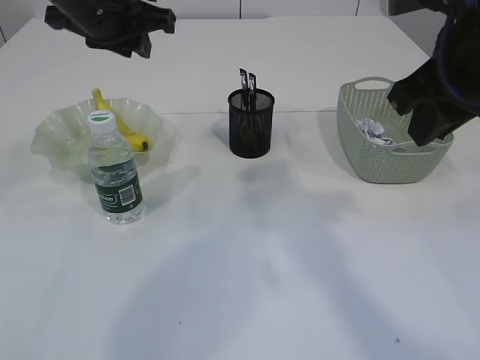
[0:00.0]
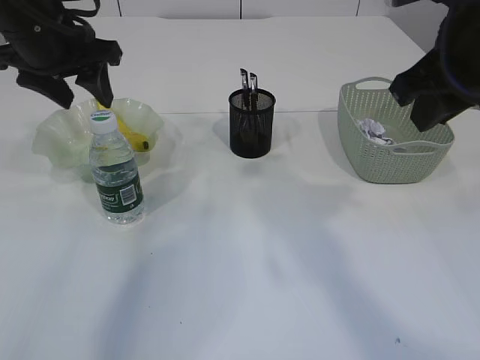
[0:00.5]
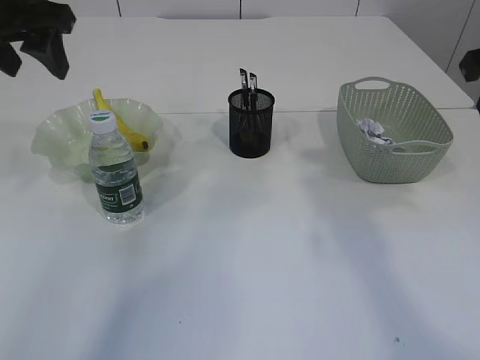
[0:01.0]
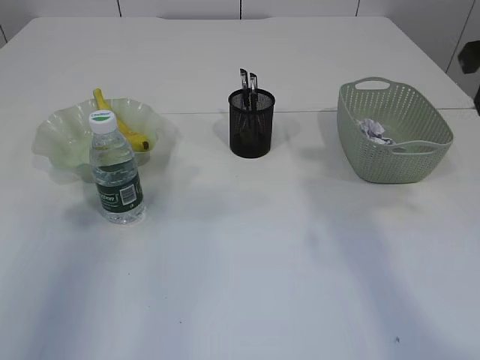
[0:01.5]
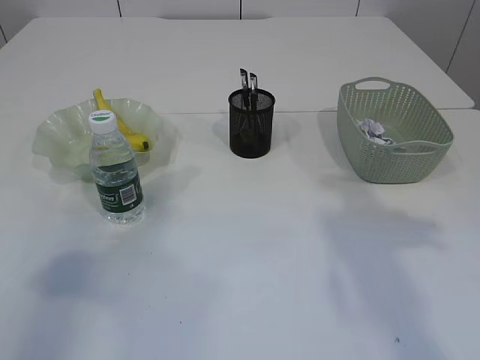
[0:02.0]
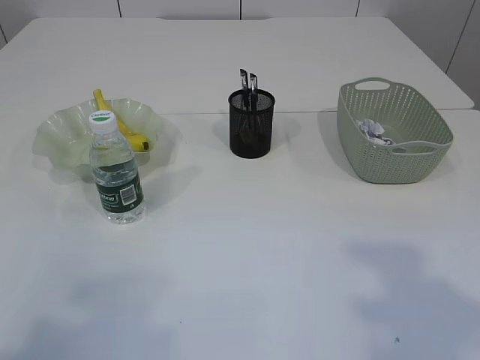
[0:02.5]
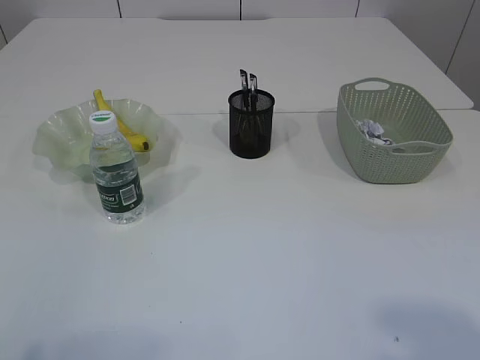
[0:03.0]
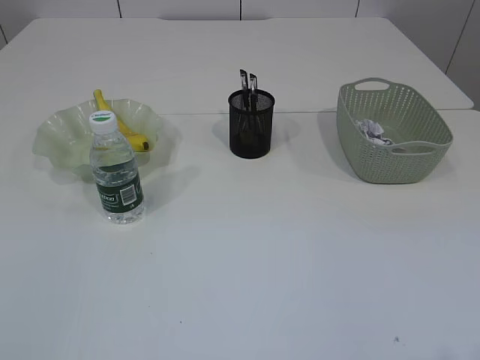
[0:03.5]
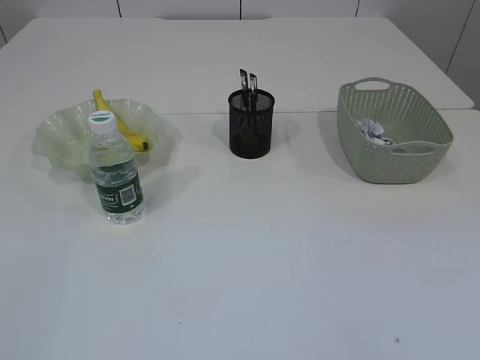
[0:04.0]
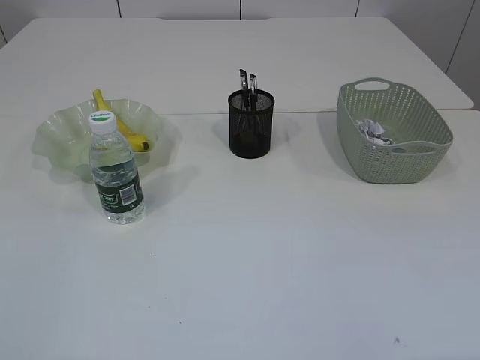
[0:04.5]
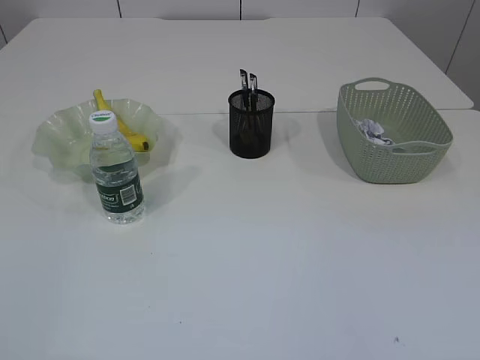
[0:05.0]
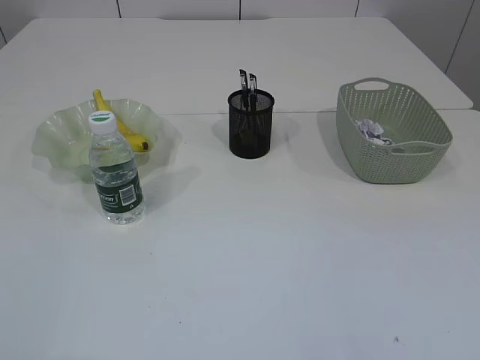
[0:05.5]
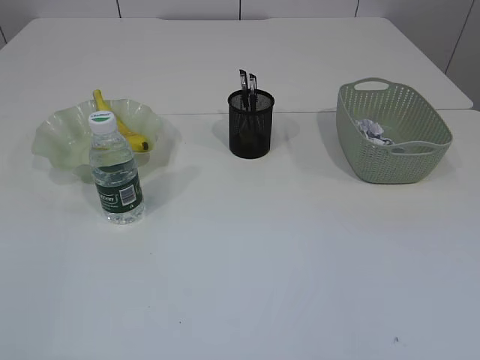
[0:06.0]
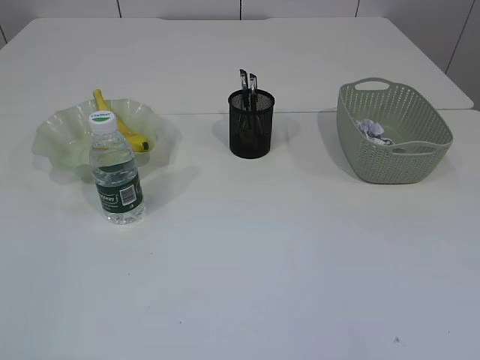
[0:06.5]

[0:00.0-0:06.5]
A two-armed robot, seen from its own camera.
0:00.0 to 0:02.0: The left gripper shifts some 30 cm backward and to the left, and opens up. The right gripper goes about 10 cm to the right.
0:02.0 to 0:04.5: The left gripper shifts about 20 cm backward and downward.

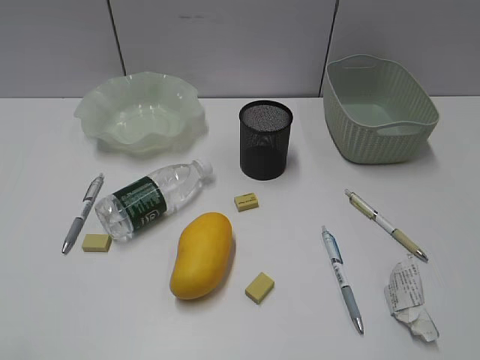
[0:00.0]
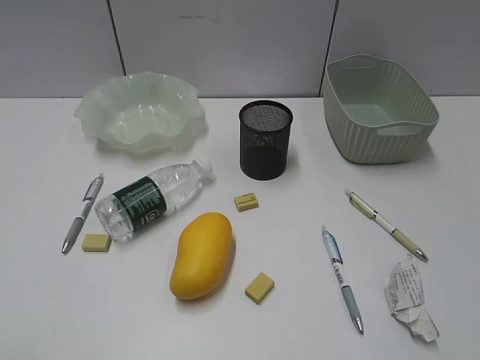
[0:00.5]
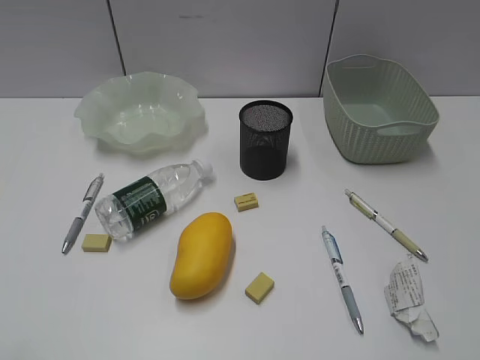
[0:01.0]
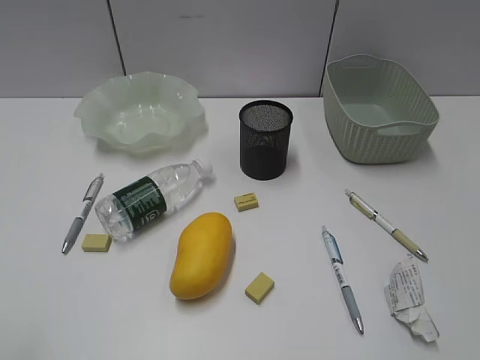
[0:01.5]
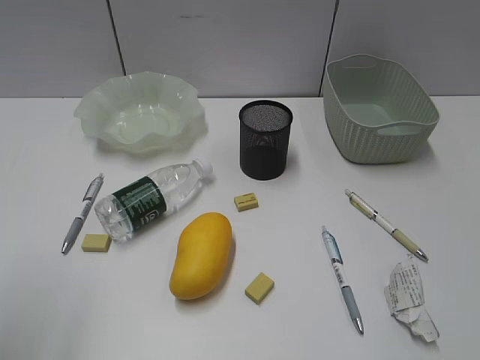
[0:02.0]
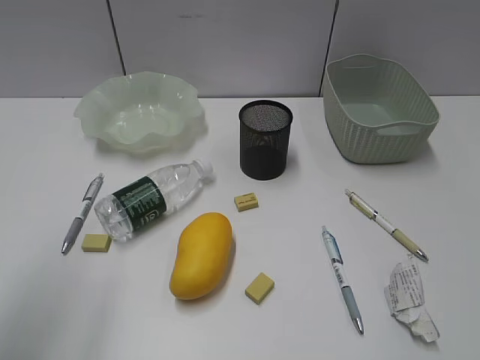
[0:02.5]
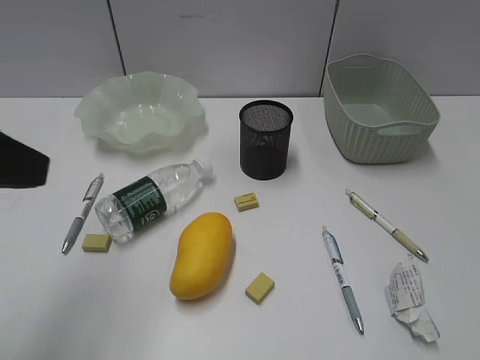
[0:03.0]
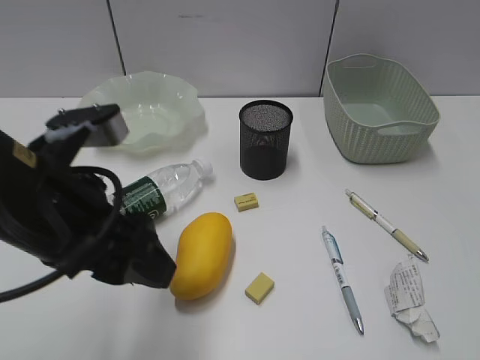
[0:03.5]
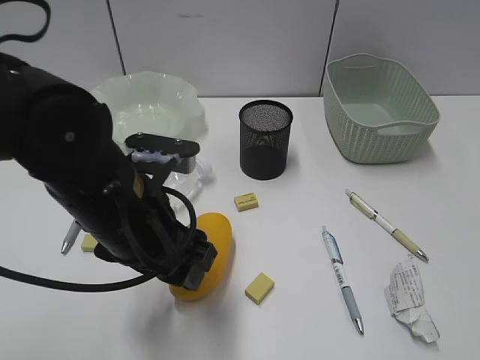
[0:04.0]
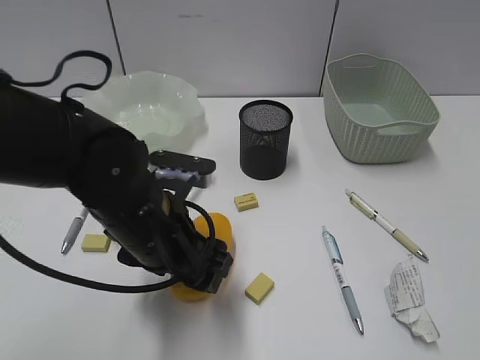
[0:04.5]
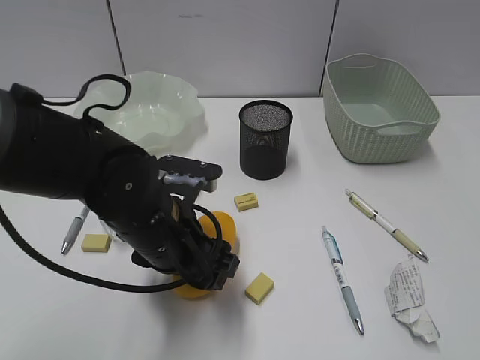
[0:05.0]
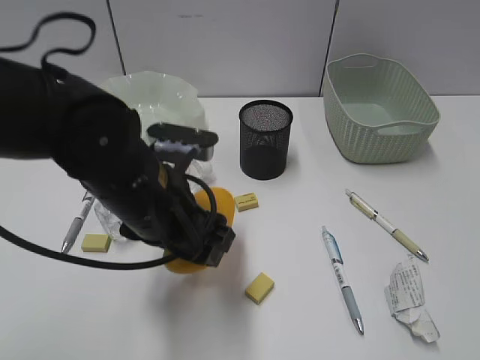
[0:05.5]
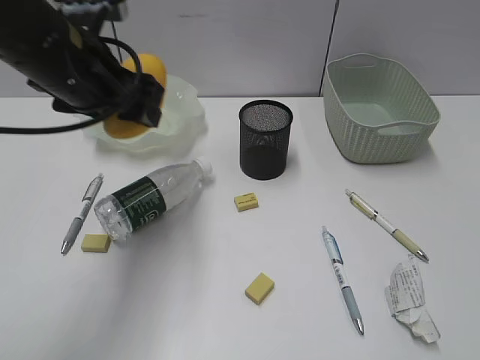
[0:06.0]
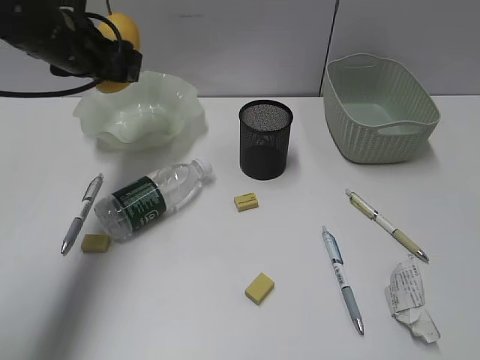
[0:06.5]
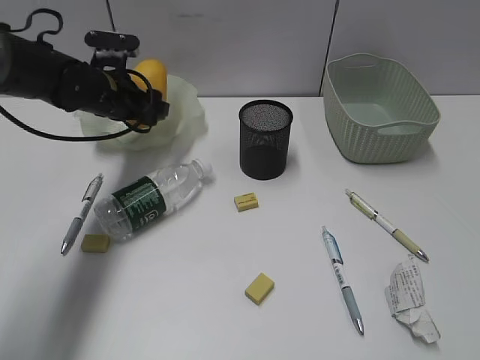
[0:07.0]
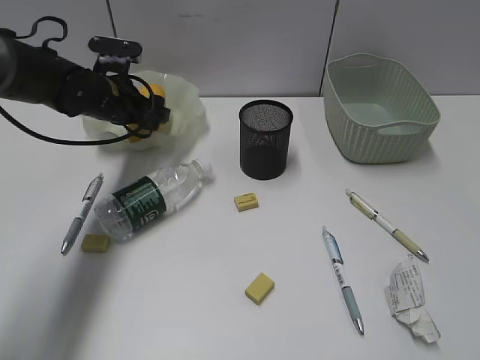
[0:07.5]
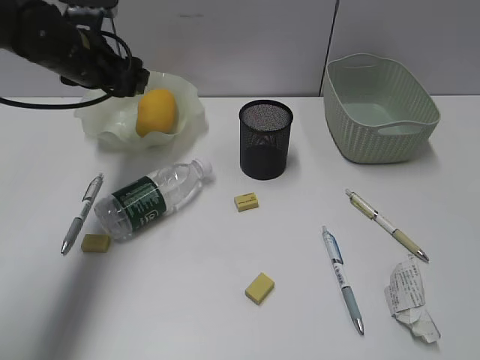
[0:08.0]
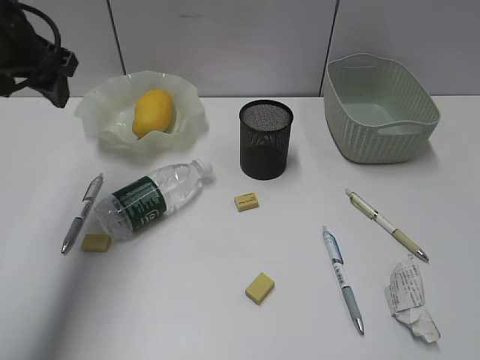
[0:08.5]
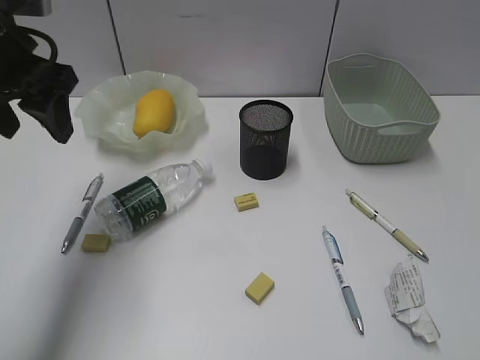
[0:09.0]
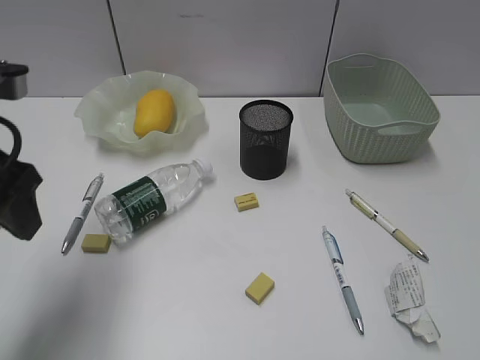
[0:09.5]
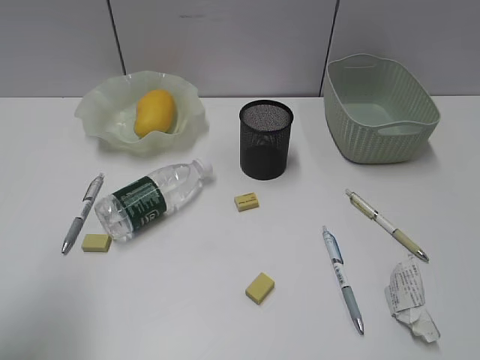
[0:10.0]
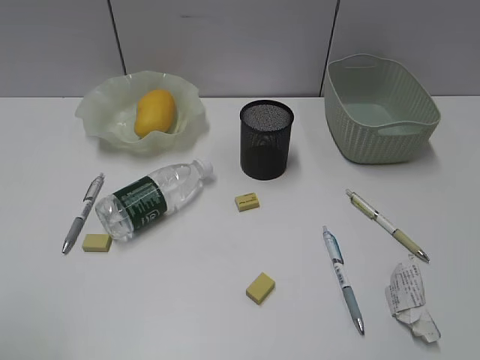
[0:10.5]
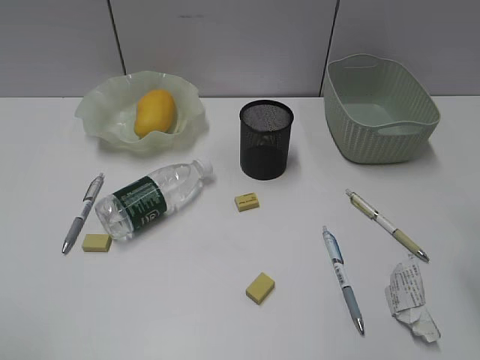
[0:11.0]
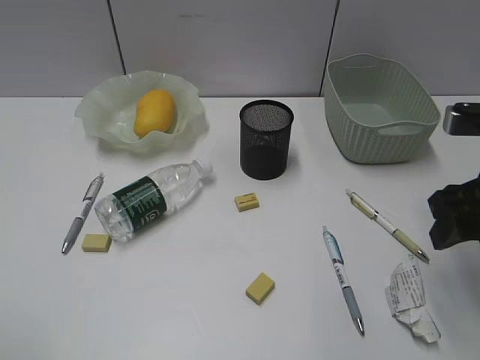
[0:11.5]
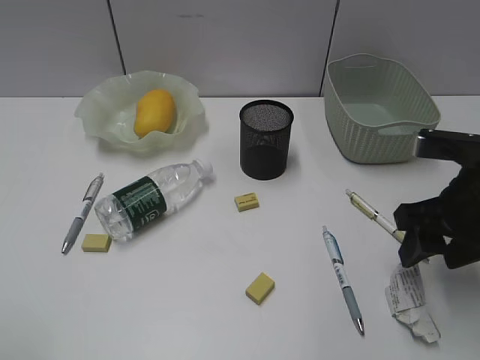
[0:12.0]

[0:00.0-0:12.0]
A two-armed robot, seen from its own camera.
Step, 0:03.0 to 0:04.5: Grasp the mango with left gripper.
Step, 0:05.0 to 0:08.0: Place the mango in the plate with left gripper.
0:02.0 to 0:04.0: The left gripper heads to the right, downward and forward, covering roughly 30 cm.
0:04.0 to 0:06.0: The left gripper travels forward, upward and to the left by some 15 cm.
0:06.0 to 0:08.0: The left gripper moves forward, approximately 10 cm.
0:08.0 to 0:10.0: The left gripper heads backward, covering approximately 30 cm.
0:10.0 to 0:12.0: The right gripper travels forward and downward by roughly 30 cm. The left gripper goes approximately 10 cm backward.

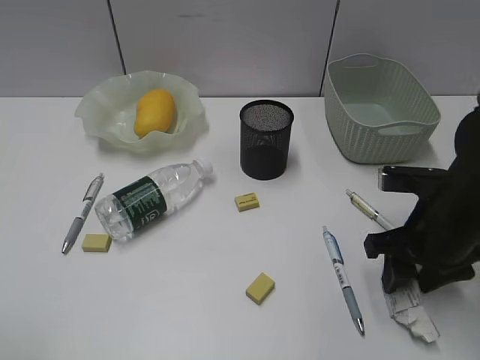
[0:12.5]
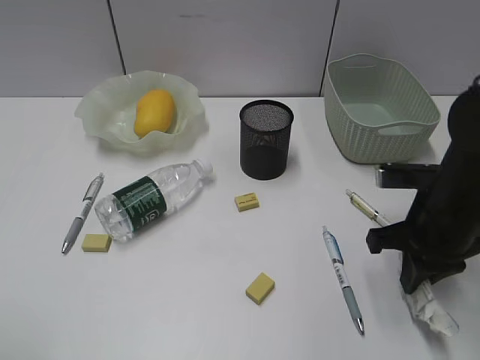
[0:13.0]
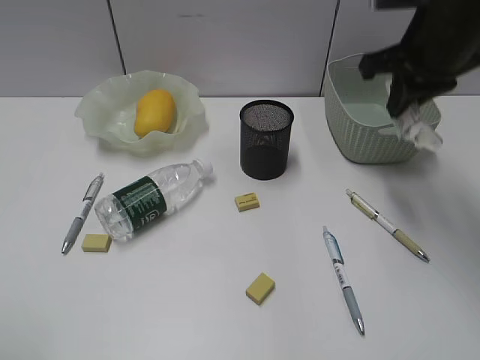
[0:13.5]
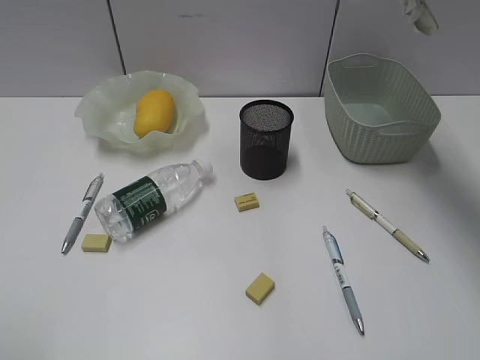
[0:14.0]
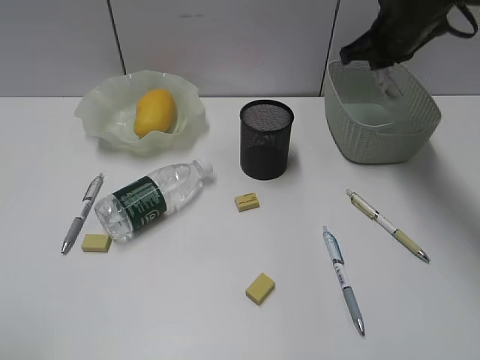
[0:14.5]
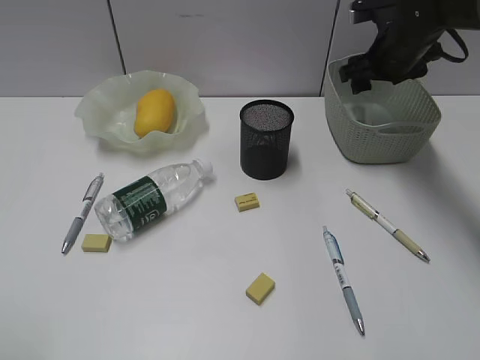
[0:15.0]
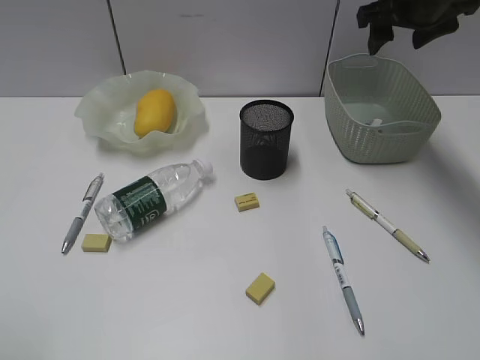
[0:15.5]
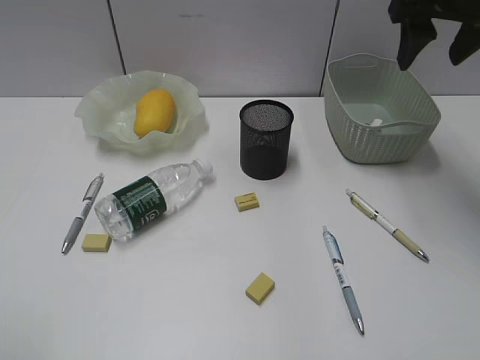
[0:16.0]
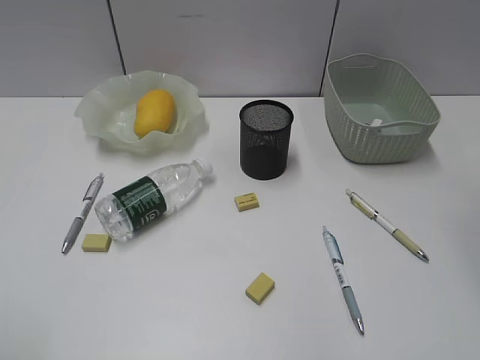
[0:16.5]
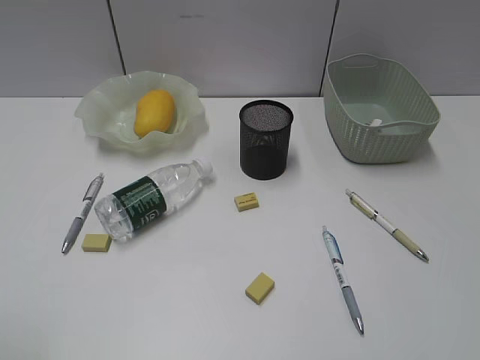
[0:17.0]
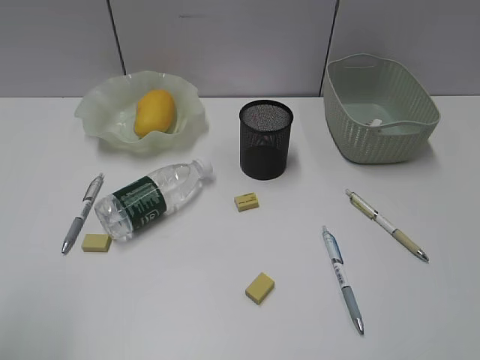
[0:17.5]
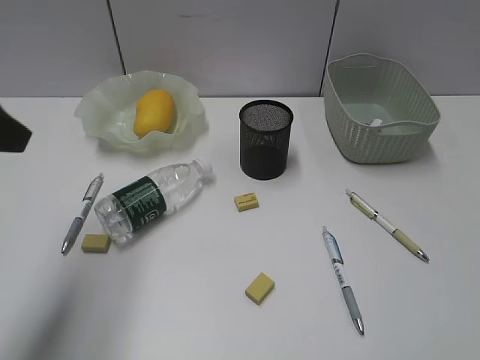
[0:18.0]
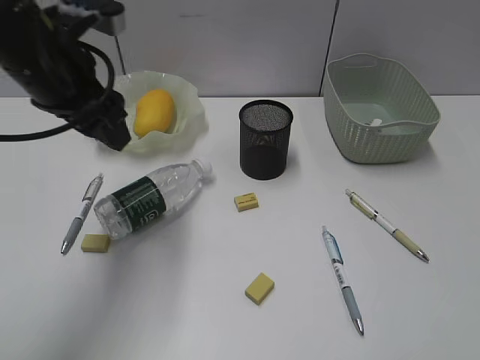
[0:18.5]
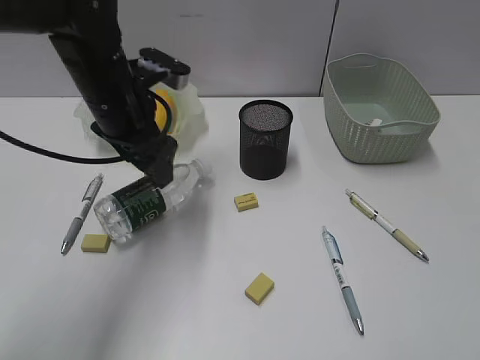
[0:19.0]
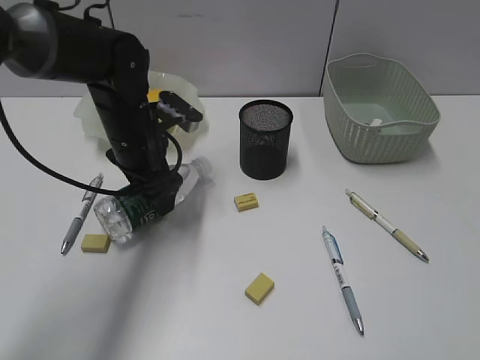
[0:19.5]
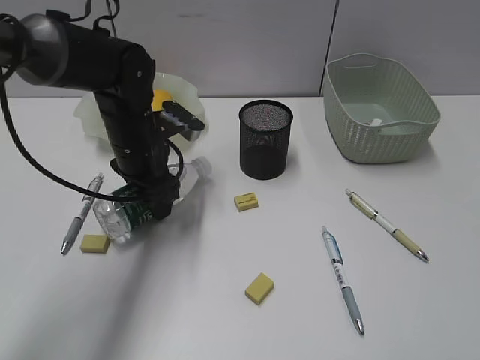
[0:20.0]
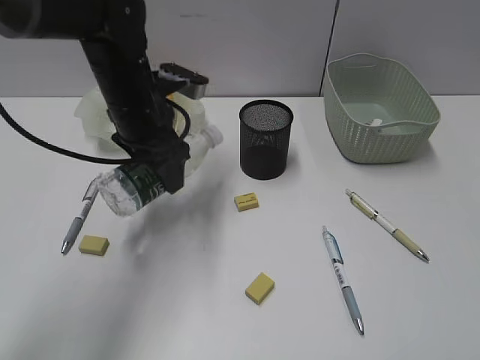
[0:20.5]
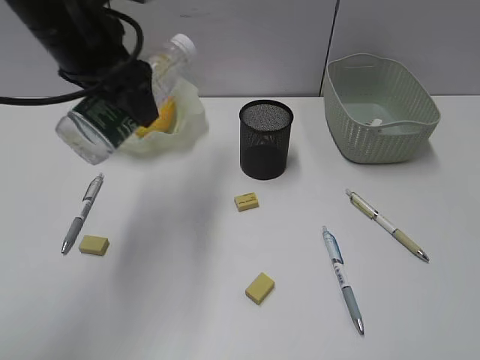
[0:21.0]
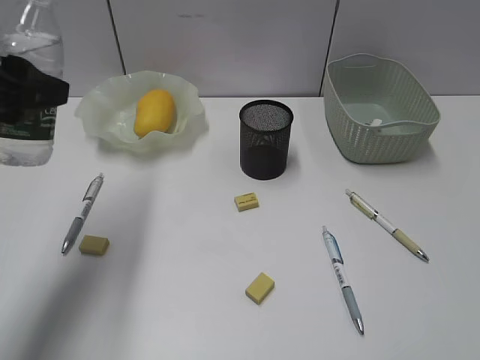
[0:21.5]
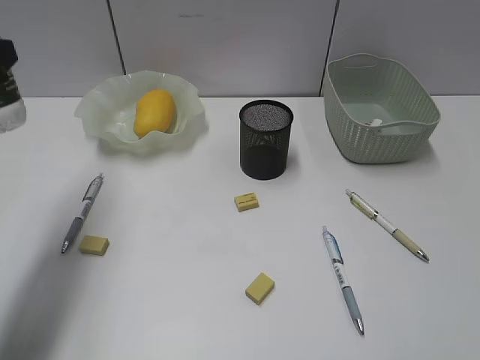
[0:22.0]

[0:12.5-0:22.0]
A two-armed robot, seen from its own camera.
Step, 0:13.0 to 0:15.0: Place the waste paper in the basket with right gripper.
Step, 0:15.5 to 0:19.5: Grasp the bottle with left gripper.
0:12.5 to 0:14.5: The right gripper moves forward and upward, about 25 cm, and closes.
0:14.5 to 0:16.5: The right gripper shifts approximately 30 cm backward and upward, and opens up.
0:16.5 to 0:18.0: The left gripper moves forward and to the right, about 20 cm.
0:18.0 to 0:20.0: The left gripper travels downward, forward and to the right by some 25 cm.
0:20.0 to 0:22.0: The left gripper is displaced to the left, upward and backward by roughly 25 cm.
